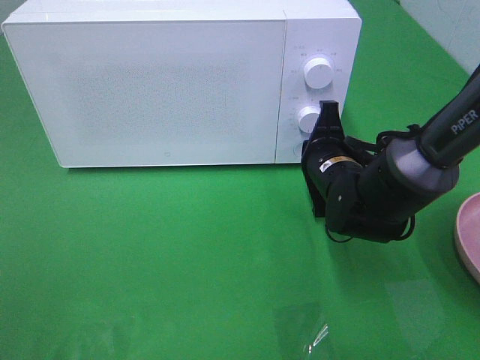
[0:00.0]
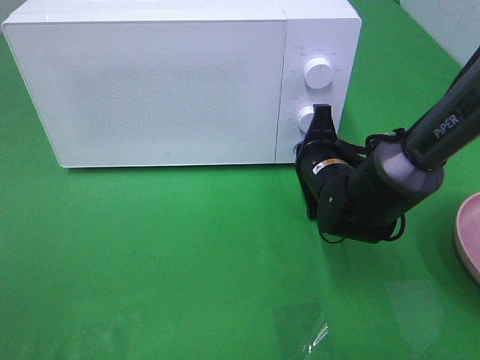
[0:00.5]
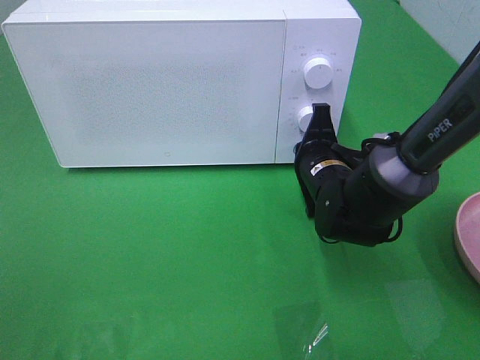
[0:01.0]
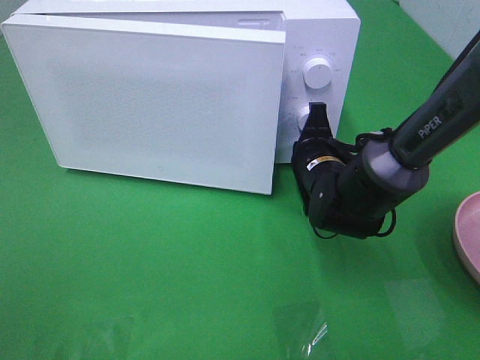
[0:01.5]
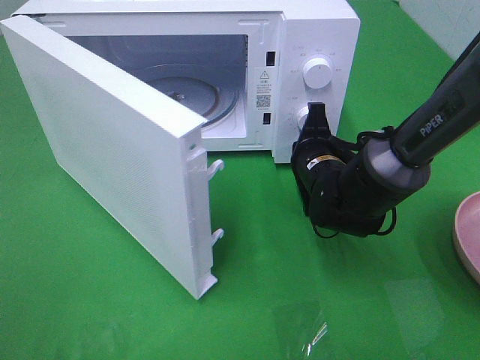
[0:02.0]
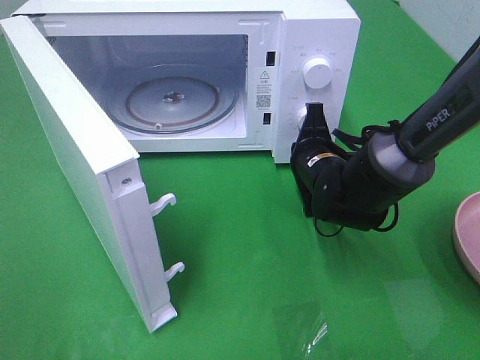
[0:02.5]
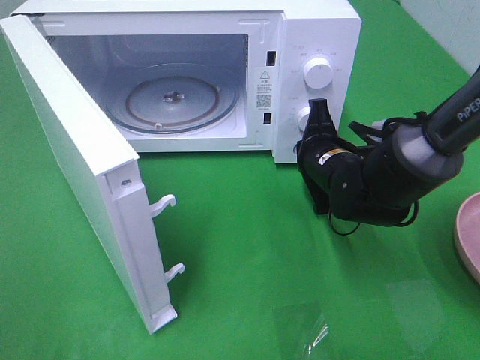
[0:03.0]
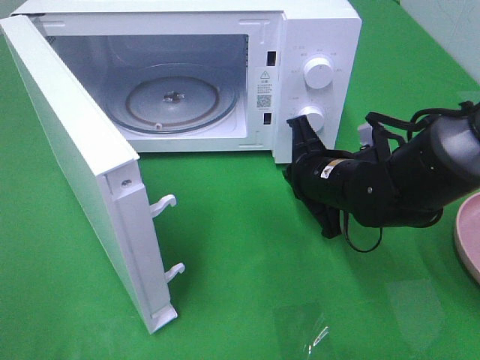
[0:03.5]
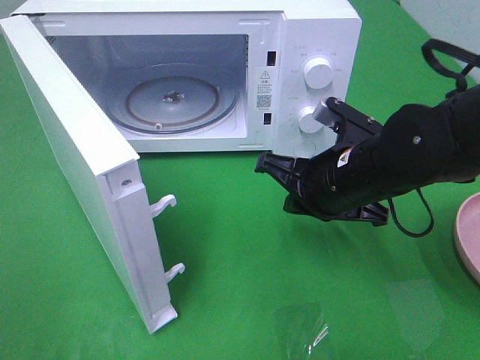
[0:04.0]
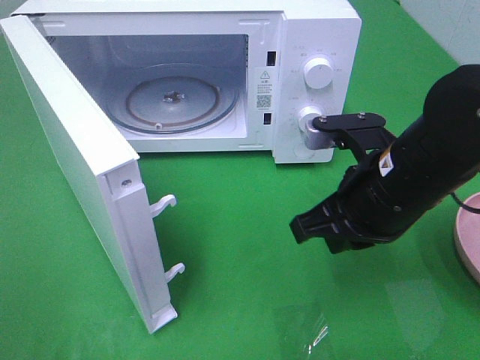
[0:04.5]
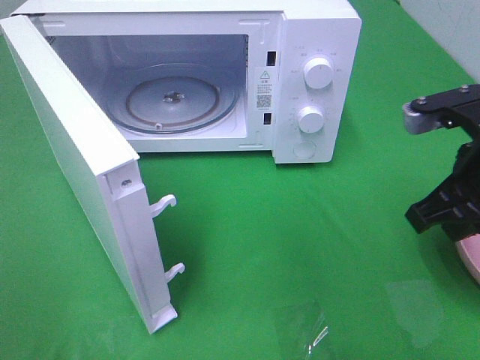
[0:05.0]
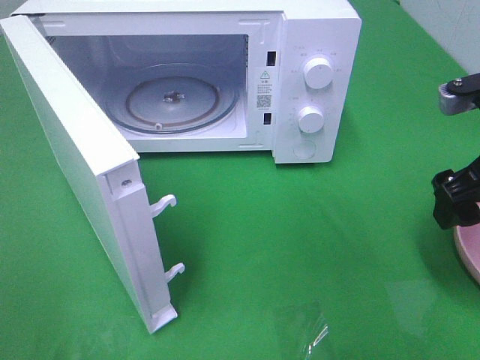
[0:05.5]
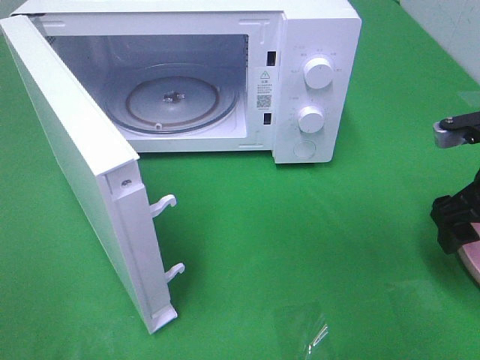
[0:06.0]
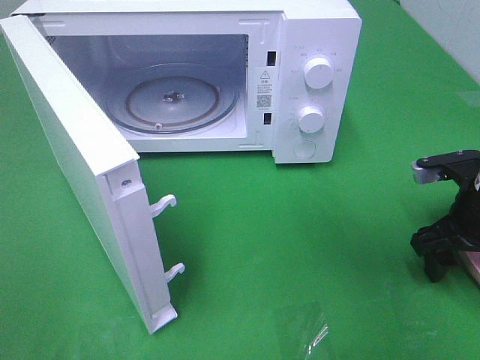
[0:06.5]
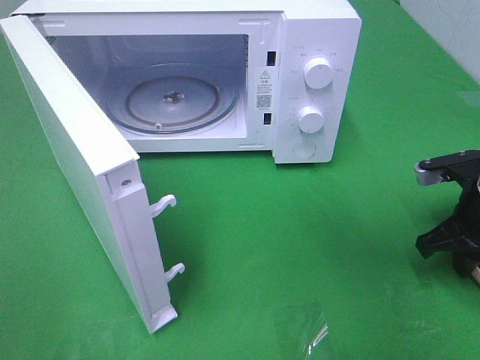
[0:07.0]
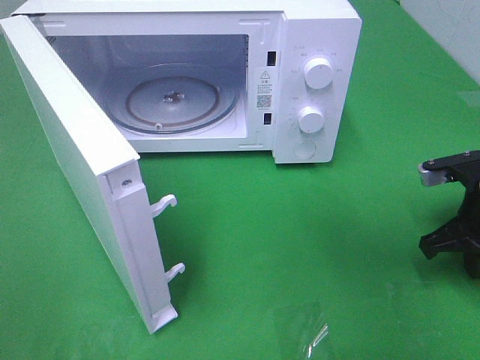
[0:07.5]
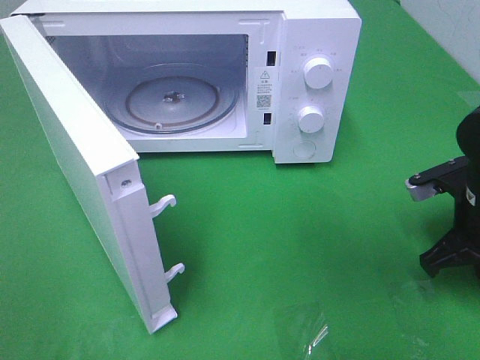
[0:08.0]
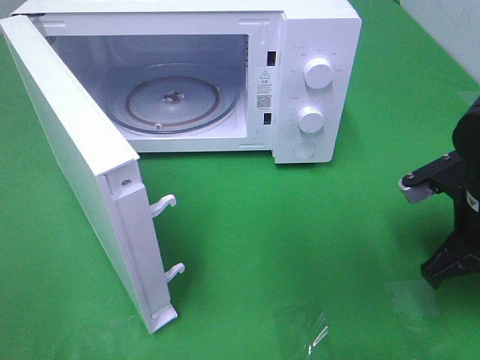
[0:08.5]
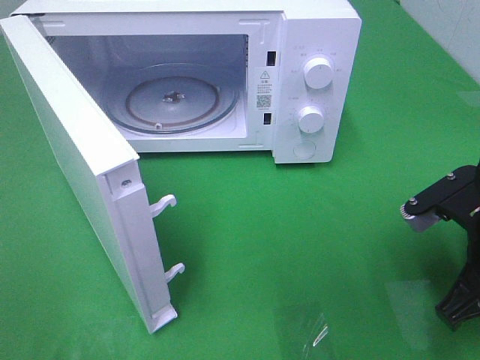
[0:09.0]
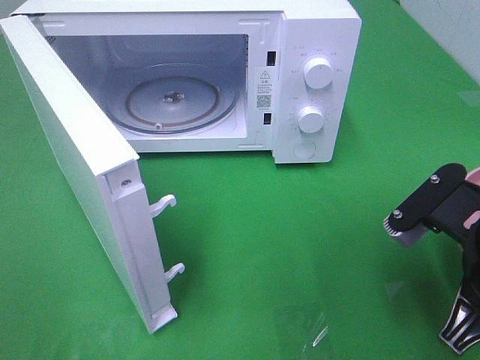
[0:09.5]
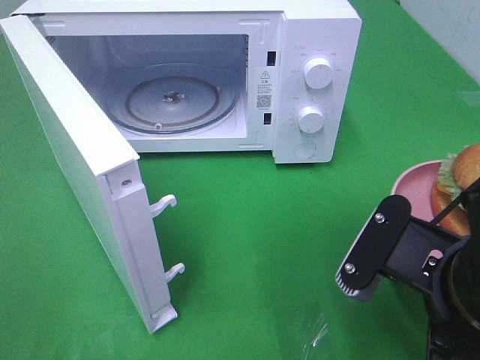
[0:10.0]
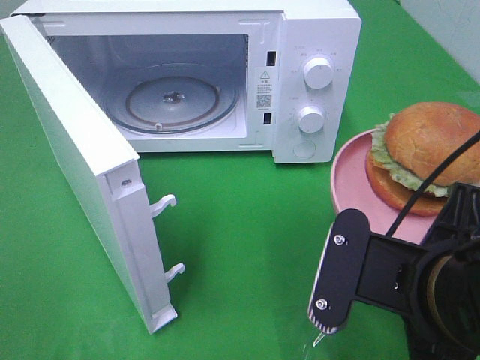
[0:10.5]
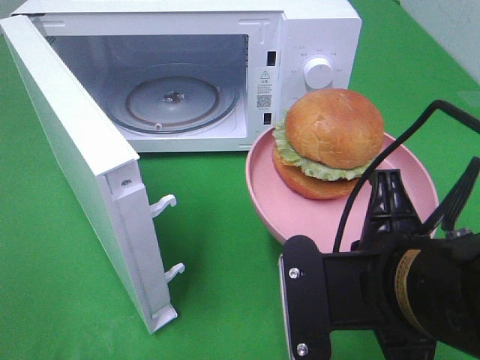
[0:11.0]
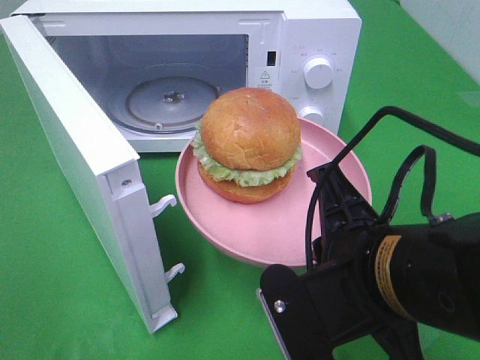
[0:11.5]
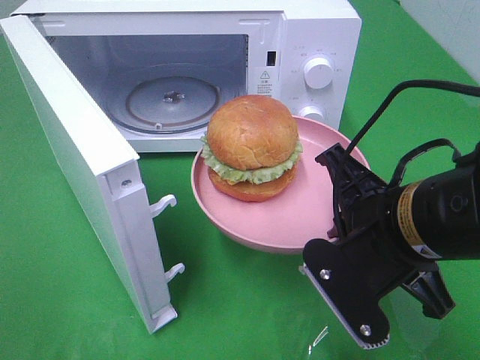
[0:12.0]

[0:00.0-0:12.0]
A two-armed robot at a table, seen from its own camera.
Task of the whole recording: Heat the burger.
Step, 0:00.0 to 0:03.0: Right hand: press the switch.
Step, 0:03.5 to 0:07.0: Right hand: grab the plate with the hamburger.
0:02.0 to 0:04.0: The right gripper travels backward and upward by roughly 10 cm.
0:04.0 to 0:06.0: The right gripper goes some 15 cm to the right, and opens up.
0:06.0 to 0:08.0: The right gripper moves some 5 cm, and closes up.
0:08.0 to 0:10.0: The right gripper heads backward, to the left and upward, covering approximately 20 cm.
0:10.0 to 0:12.0: The right gripper is displaced forward by roughly 5 cm.

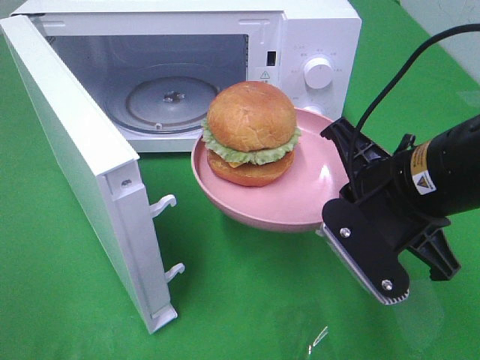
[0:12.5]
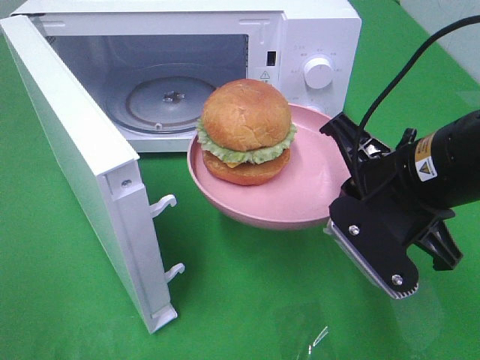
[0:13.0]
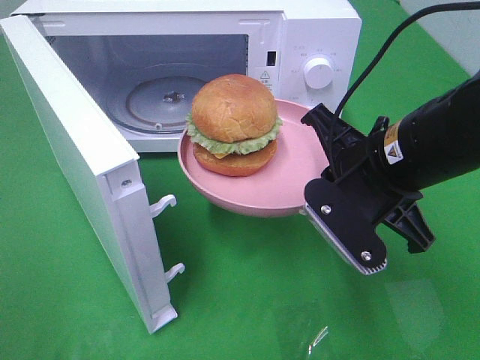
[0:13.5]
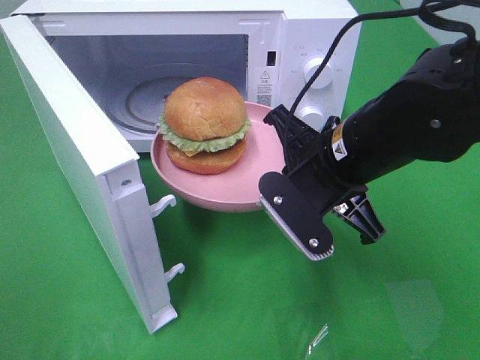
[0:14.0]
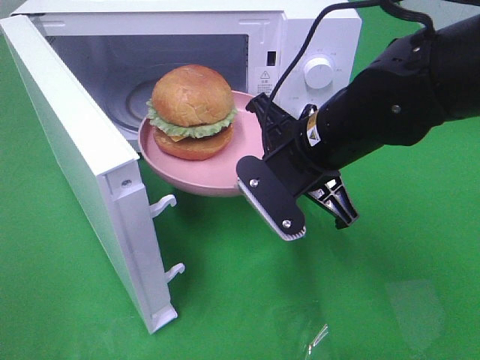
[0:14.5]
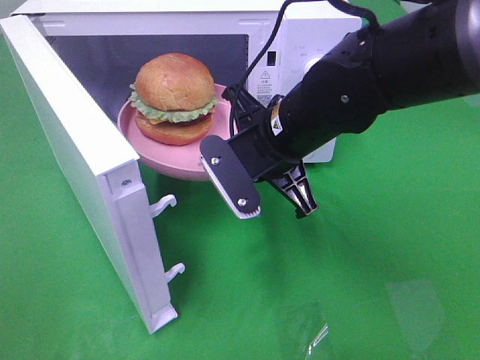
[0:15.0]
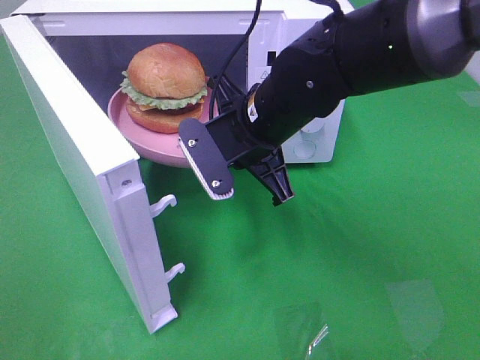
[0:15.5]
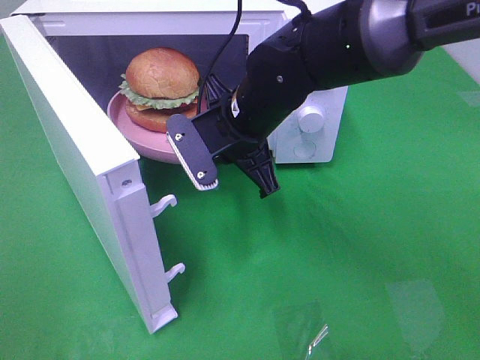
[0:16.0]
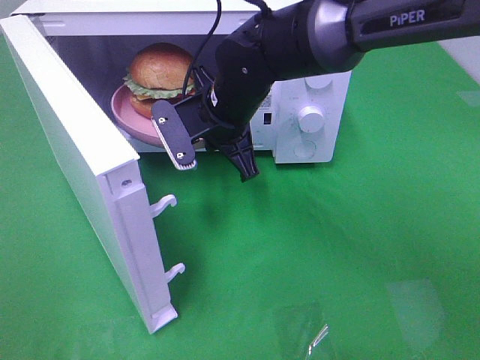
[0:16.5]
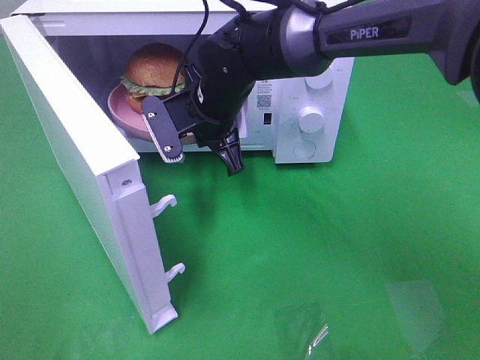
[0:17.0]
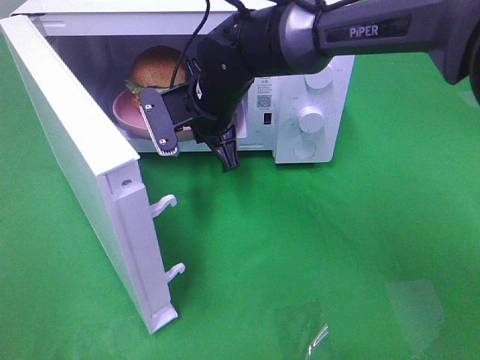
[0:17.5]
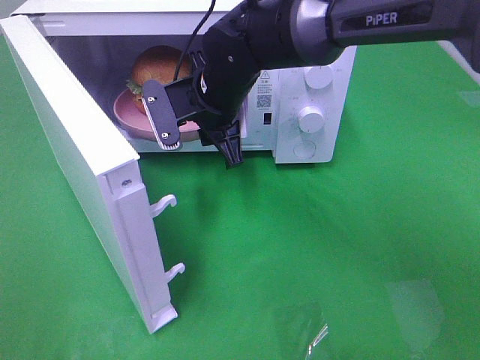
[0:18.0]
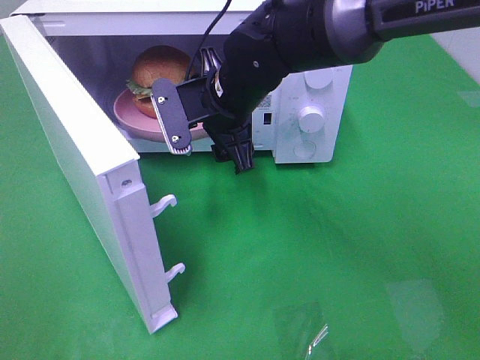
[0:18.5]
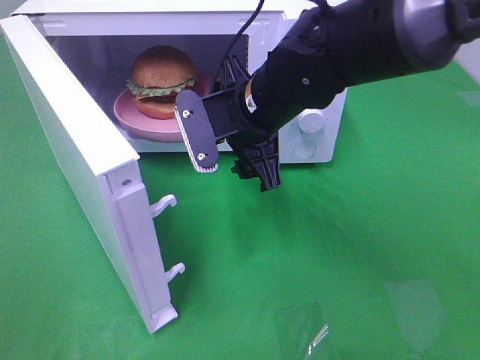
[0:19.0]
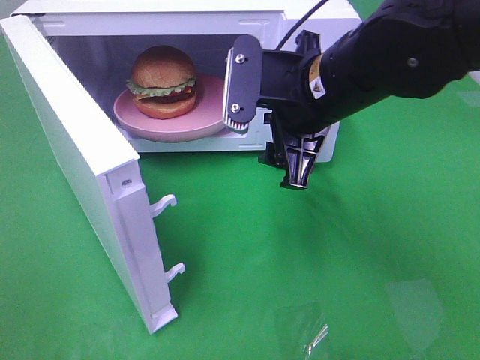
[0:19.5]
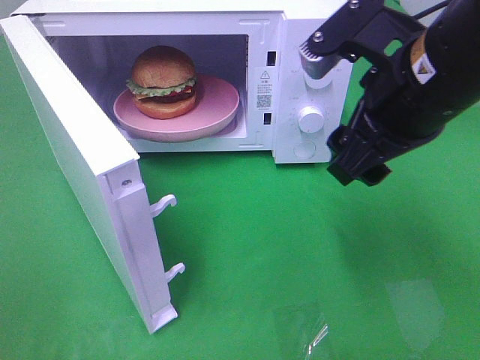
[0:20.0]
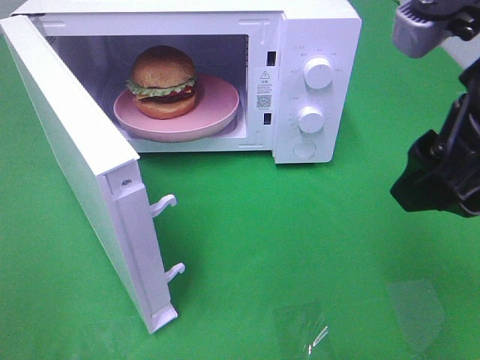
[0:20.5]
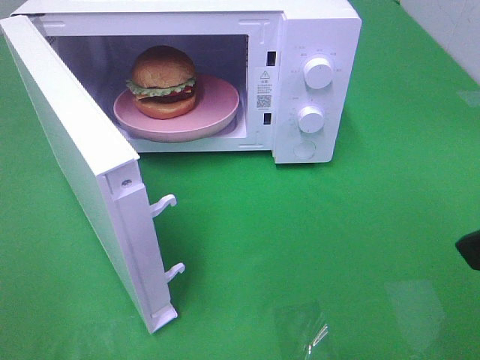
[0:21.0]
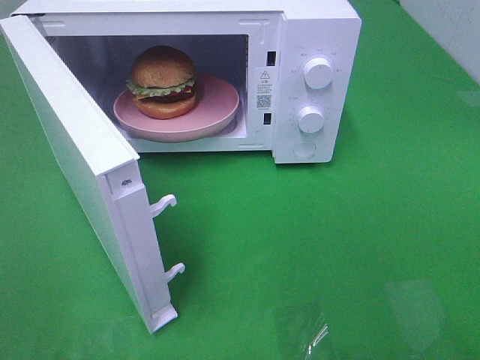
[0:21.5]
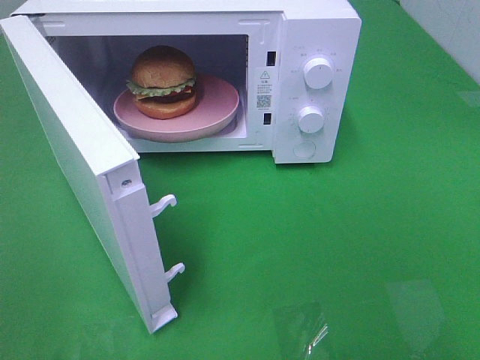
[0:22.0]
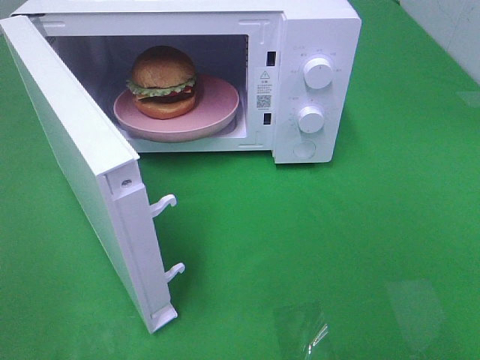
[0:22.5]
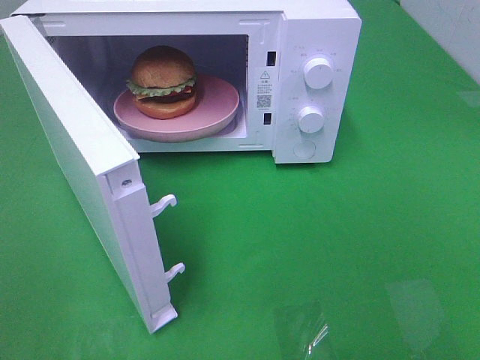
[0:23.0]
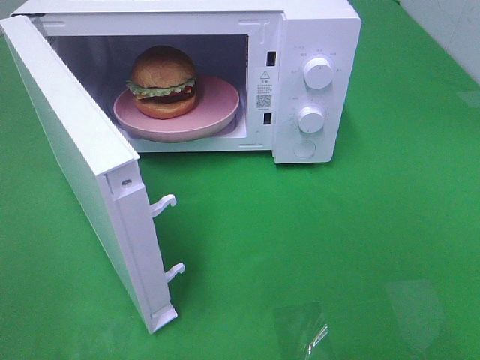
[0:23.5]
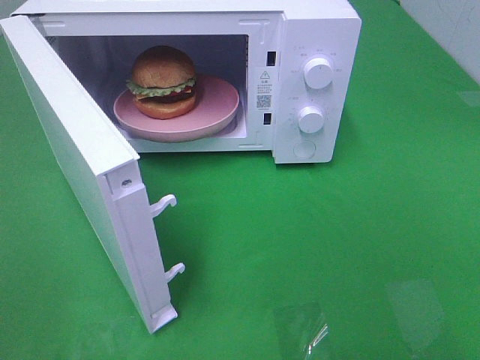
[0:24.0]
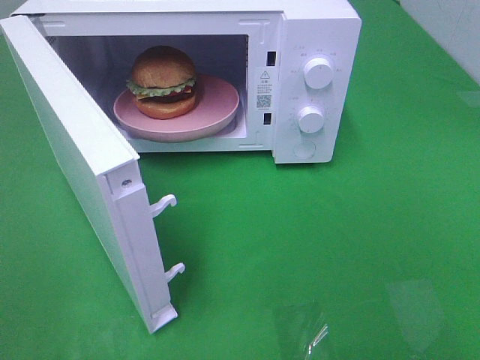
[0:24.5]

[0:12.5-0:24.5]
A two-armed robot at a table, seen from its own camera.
Task of the whole recording: Heat the burger.
Step, 0:12.5 to 0:17.5: Right hand: place the plate in the microwave.
0:12.5 to 0:14.5: The right gripper heads forward and to the left, covering some 10 cm.
0:14.5 to 0:16.5: The right gripper moves forward and to the left, about 15 cm.
0:16.5 to 0:18.5: The right gripper opens up.
0:18.5 to 0:20.5: The right gripper is displaced backward, to the right and upward by about 30 cm.
0:20.5 to 0:22.5: The right gripper is displaced backward and to the right by some 20 cm.
0:22.5 to 0:24.5: Both grippers stay about where they are.

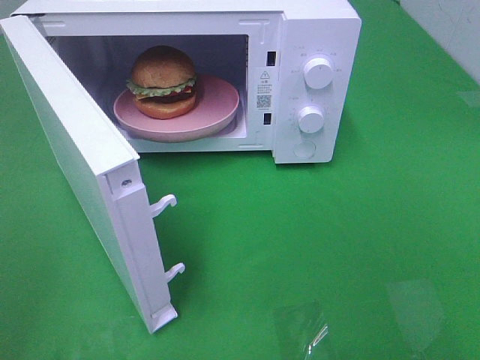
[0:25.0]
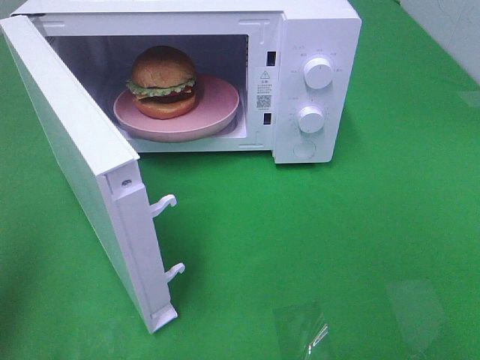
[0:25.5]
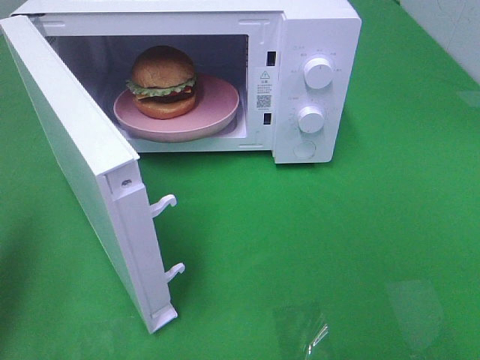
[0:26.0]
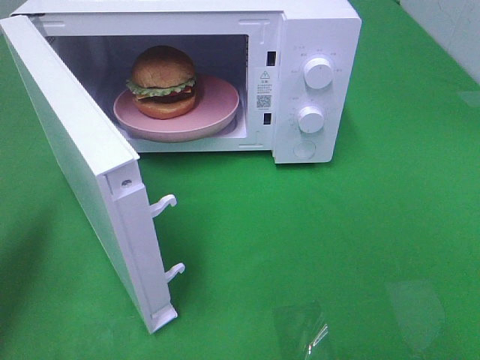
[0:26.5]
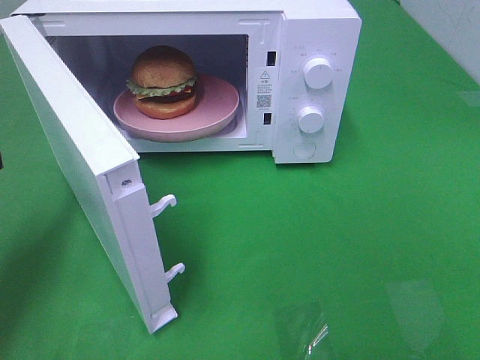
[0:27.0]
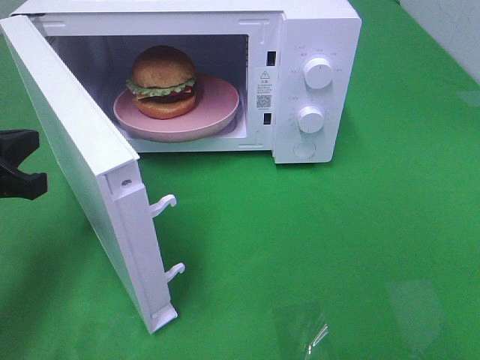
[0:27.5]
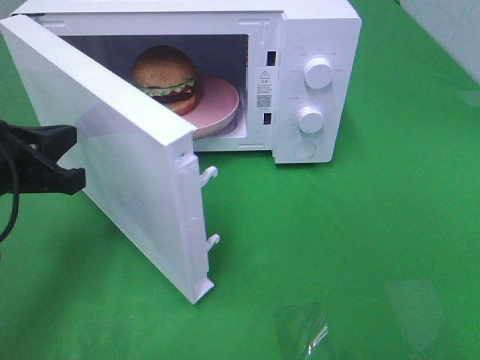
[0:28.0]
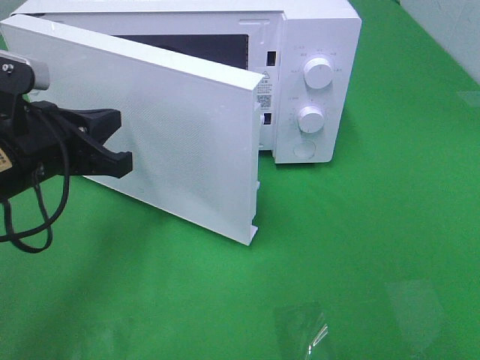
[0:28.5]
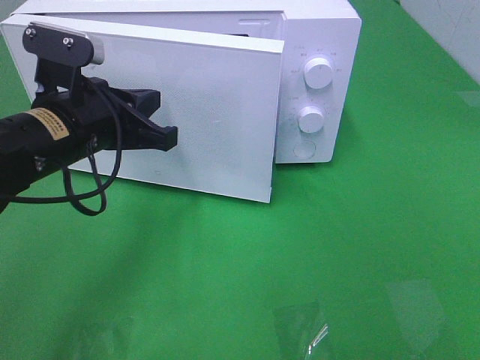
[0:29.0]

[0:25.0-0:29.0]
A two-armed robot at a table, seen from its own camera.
Task of the whole recording: Heat the burger.
0:25.0 to 0:27.0: The left gripper shifts roughly 25 cm forward and downward, and closes up.
0:27.0 to 0:29.0: The left gripper shifts roughly 15 cm to the right.
